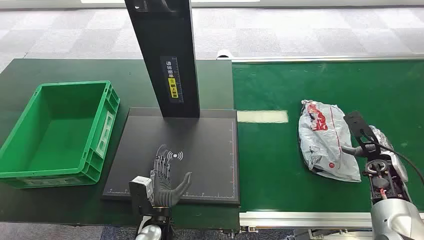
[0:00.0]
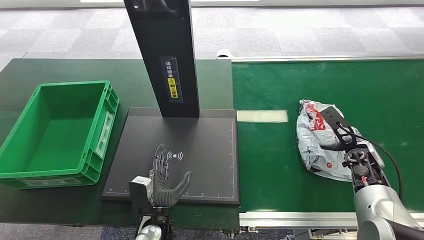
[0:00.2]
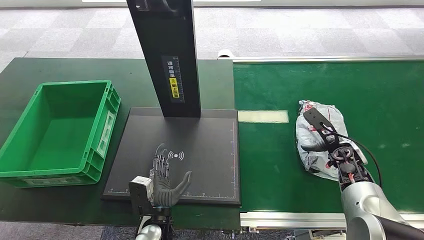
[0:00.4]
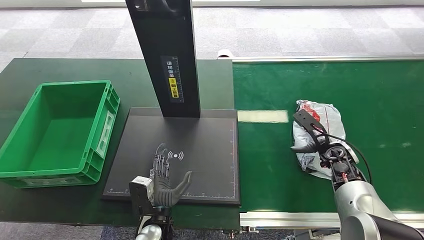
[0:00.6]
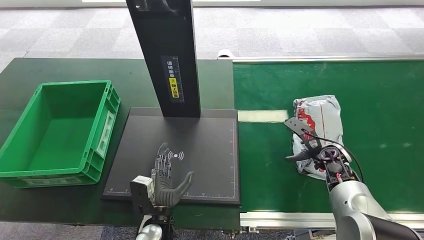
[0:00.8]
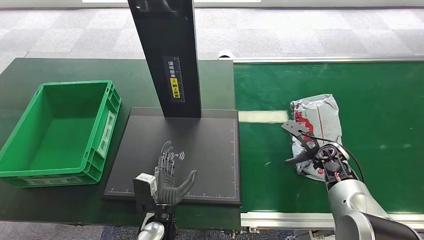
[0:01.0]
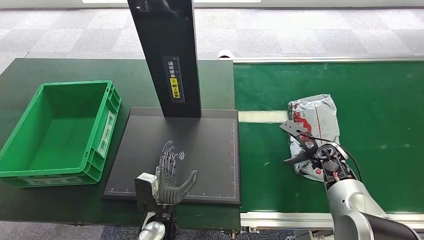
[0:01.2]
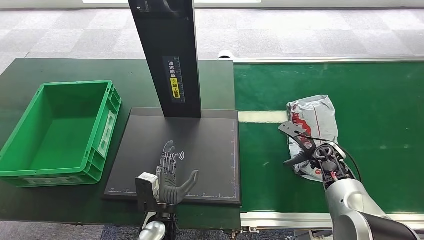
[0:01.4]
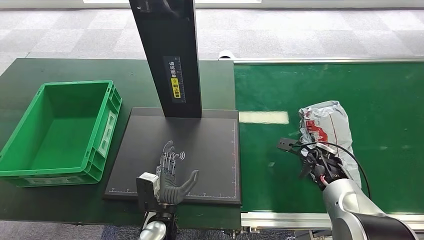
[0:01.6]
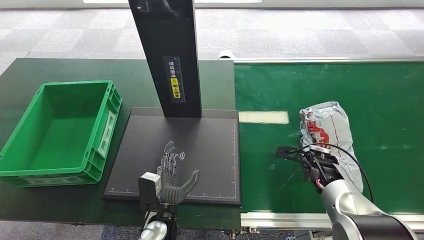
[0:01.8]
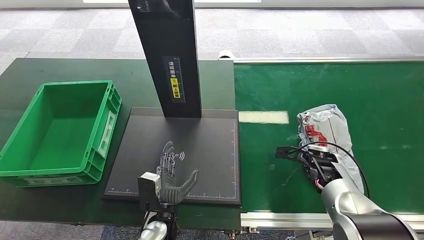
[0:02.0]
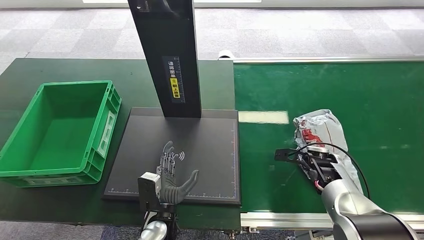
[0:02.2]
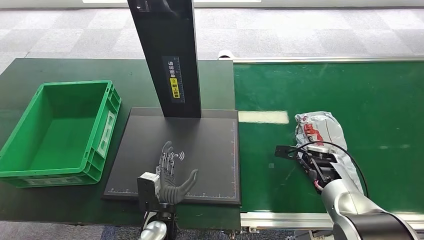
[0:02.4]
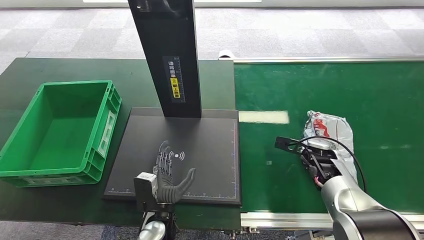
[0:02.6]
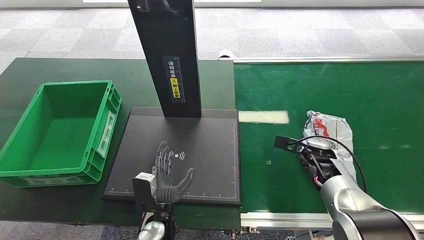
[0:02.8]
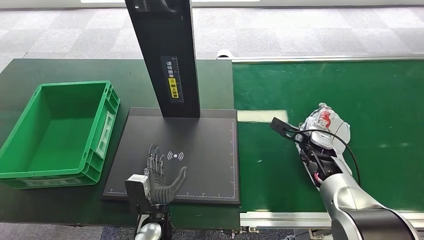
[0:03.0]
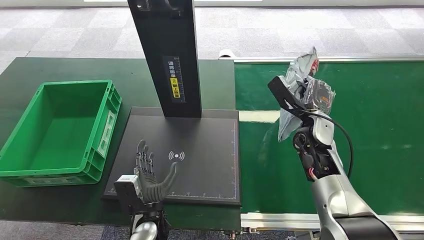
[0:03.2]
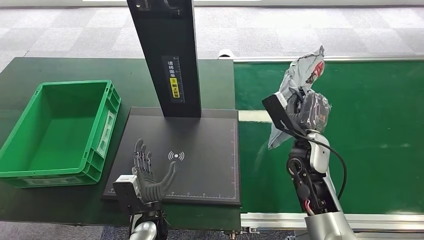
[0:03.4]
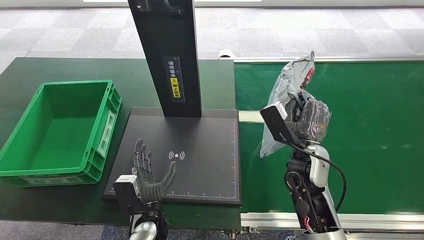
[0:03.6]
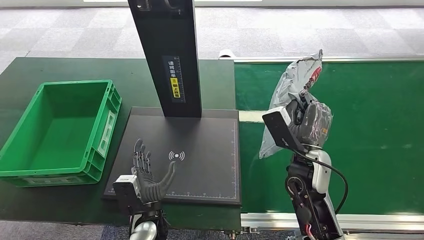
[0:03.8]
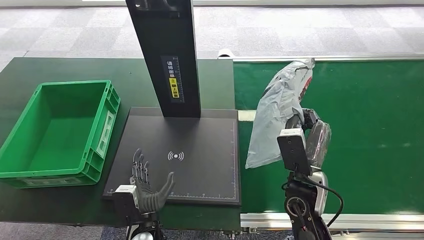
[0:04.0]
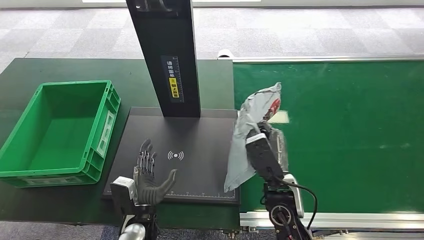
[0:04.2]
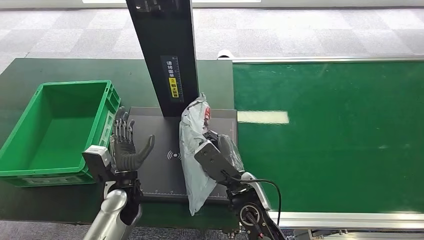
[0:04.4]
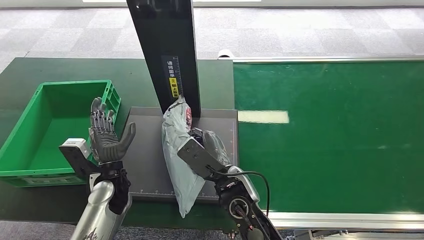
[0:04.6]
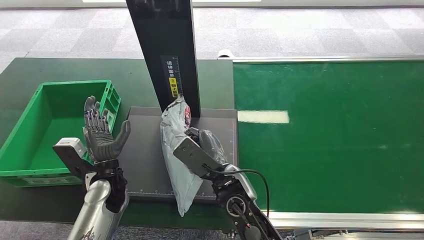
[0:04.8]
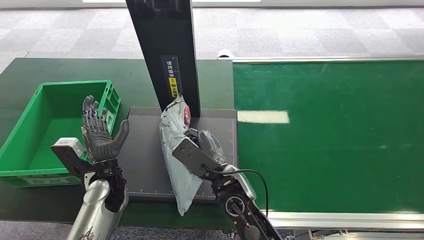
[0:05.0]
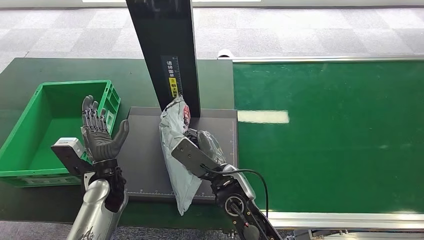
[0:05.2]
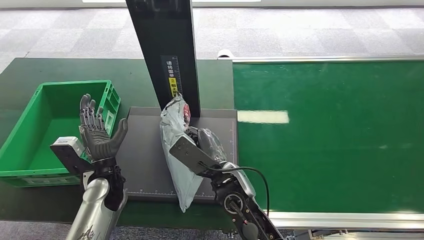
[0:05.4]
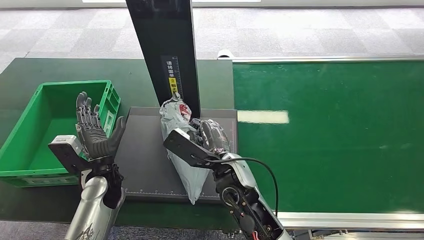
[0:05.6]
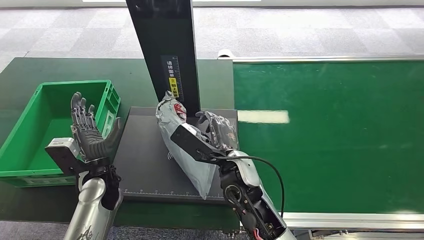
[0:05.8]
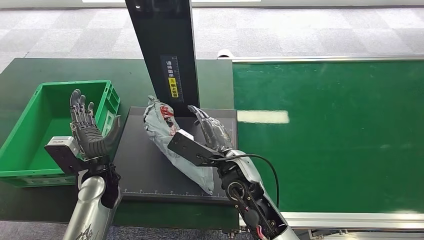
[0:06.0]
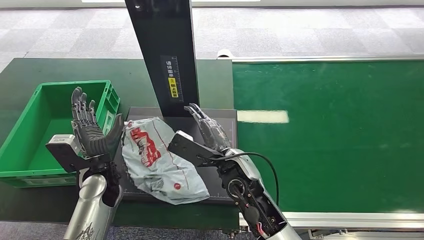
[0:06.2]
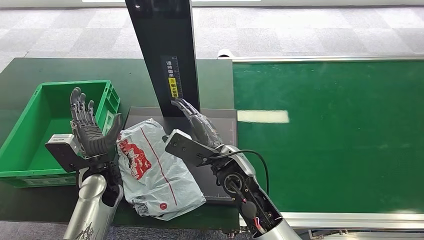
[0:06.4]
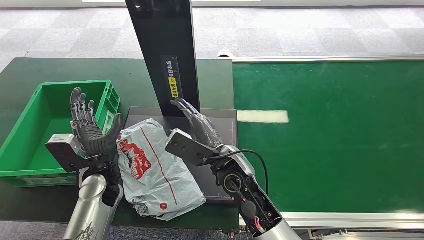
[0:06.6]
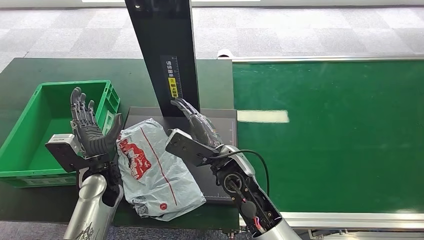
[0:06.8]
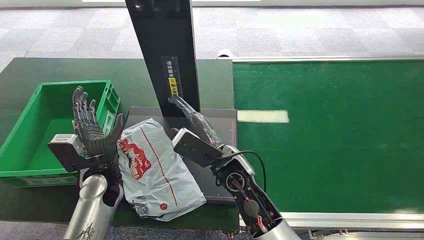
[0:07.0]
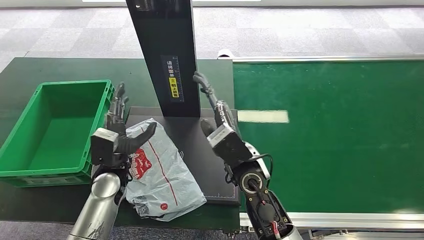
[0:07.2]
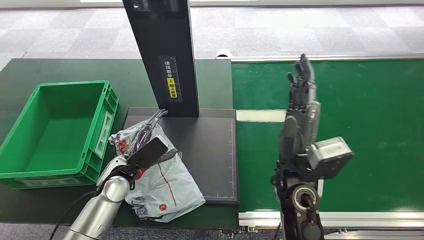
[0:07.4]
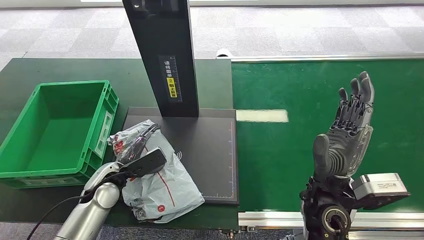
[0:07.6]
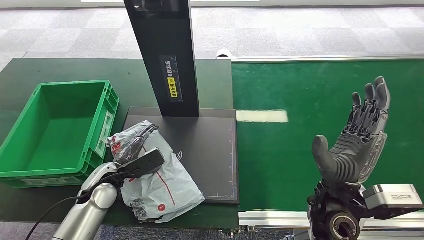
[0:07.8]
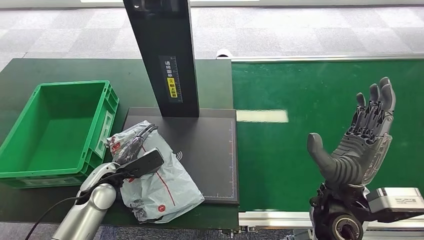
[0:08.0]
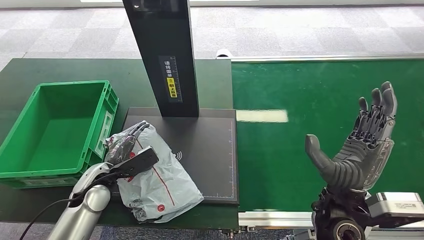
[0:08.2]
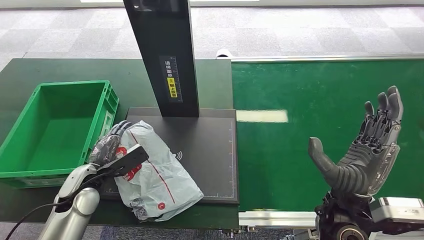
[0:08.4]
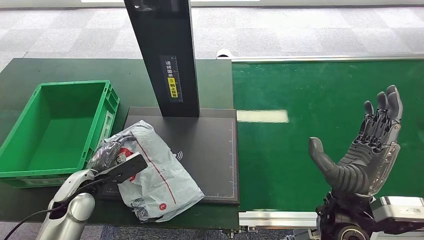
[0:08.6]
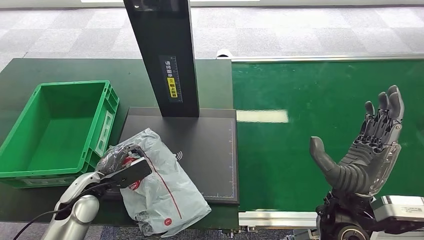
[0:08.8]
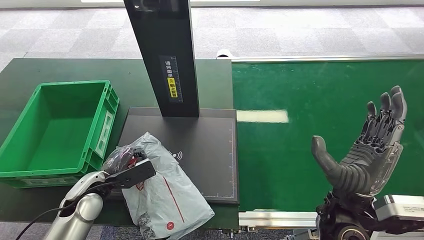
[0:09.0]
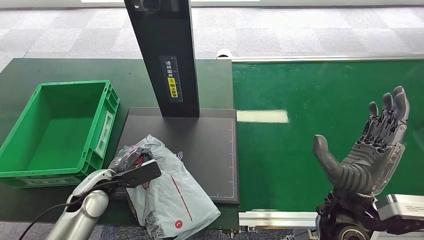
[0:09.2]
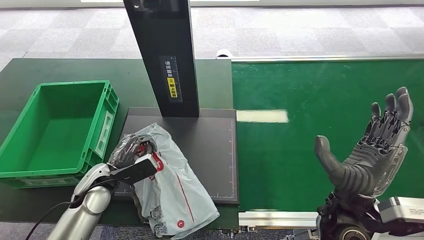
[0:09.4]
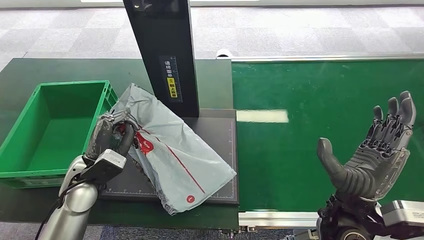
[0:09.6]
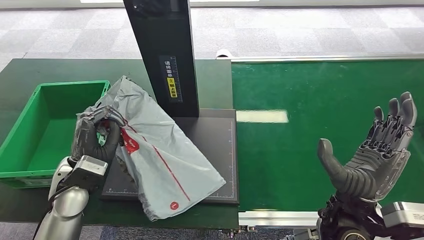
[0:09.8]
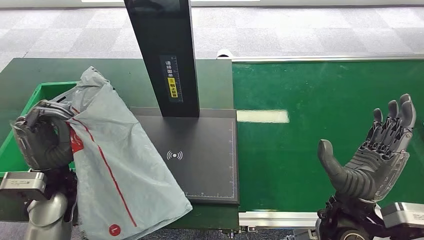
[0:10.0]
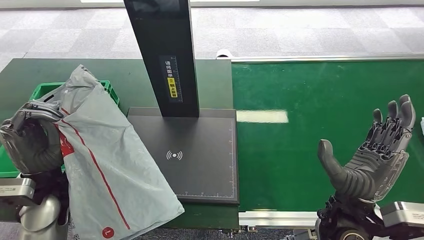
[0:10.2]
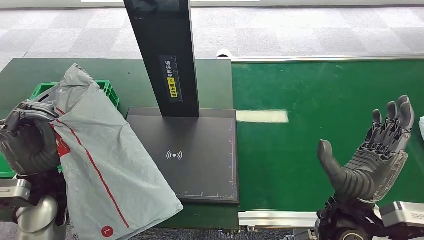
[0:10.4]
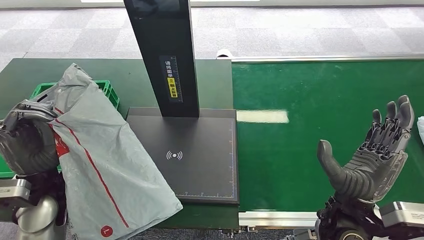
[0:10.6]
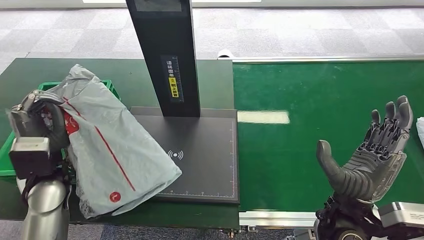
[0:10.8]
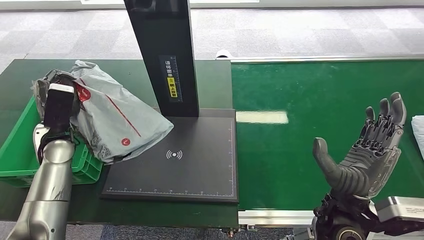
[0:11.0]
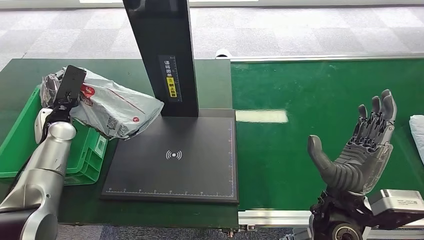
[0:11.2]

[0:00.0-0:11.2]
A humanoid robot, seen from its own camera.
Step, 0:00.0 to 0:04.0: Pick up the package from the conveyor belt.
Step, 0:04.2 to 0:07.8: Place the package onto the inbound machine.
Step, 0:08.0 to 0:11.0: Pick up the package from the inbound machine.
0:01.6 to 0:03.2: The right hand shifts approximately 10 cm upward and to the left.

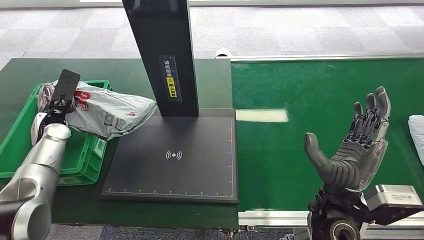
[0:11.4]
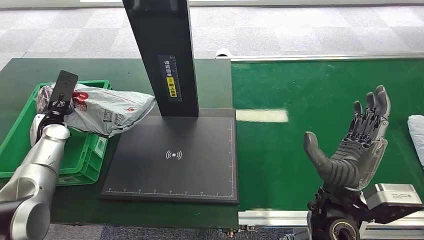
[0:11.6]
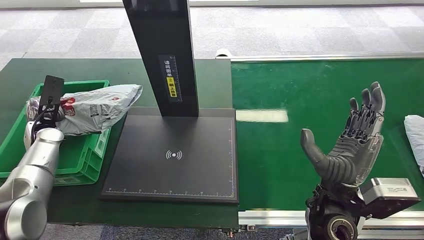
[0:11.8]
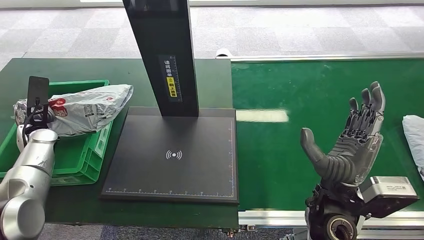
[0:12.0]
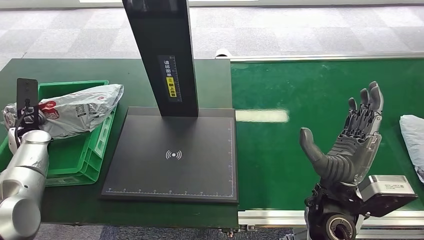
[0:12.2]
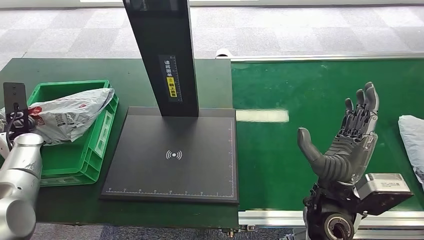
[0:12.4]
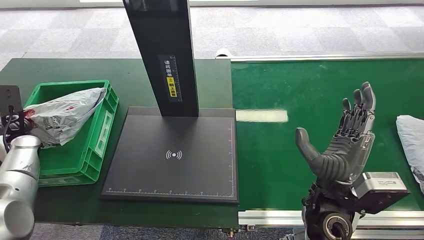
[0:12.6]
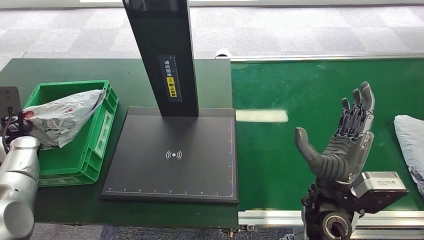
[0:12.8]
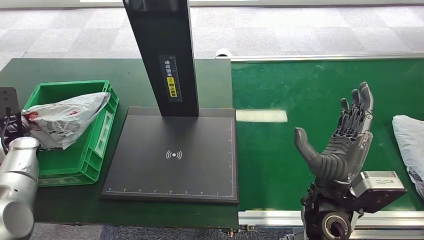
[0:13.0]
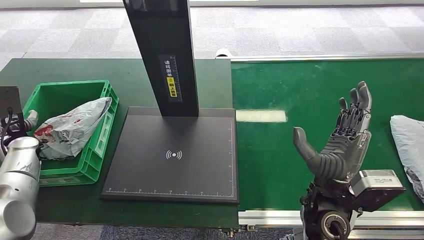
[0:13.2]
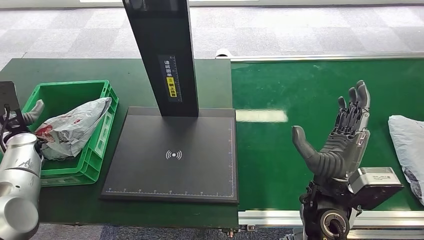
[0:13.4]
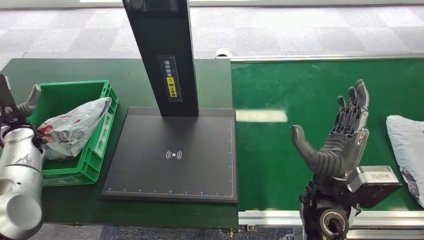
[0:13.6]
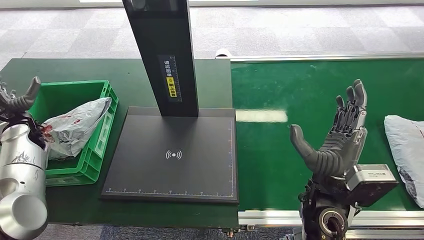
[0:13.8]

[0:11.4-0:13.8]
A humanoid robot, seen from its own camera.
Step, 0:11.4 to 0:13.8: Place the package into the parcel locker.

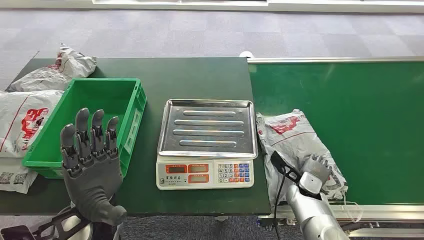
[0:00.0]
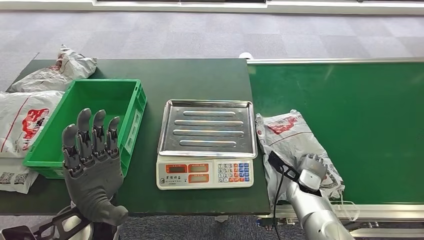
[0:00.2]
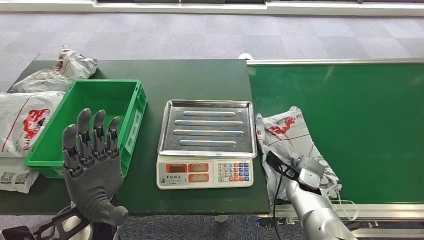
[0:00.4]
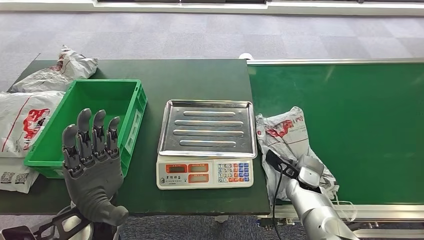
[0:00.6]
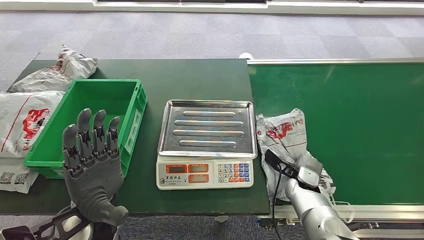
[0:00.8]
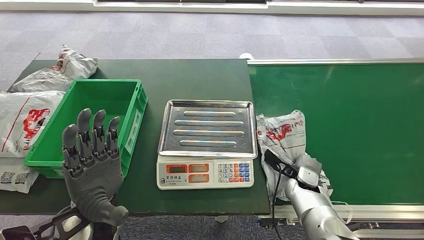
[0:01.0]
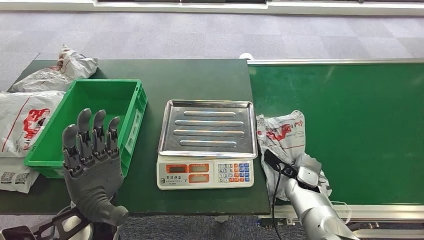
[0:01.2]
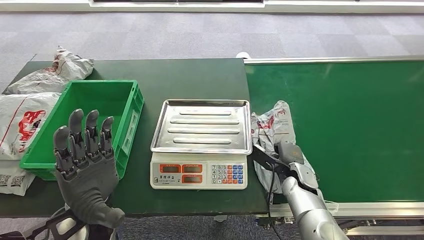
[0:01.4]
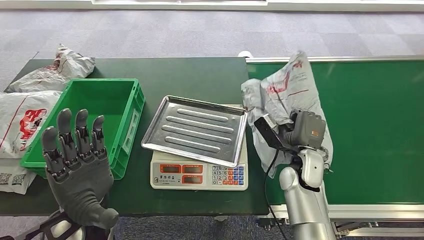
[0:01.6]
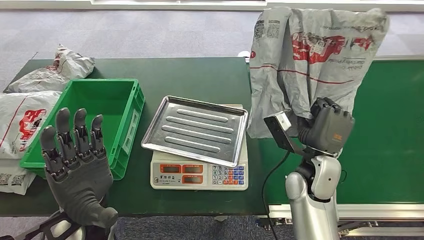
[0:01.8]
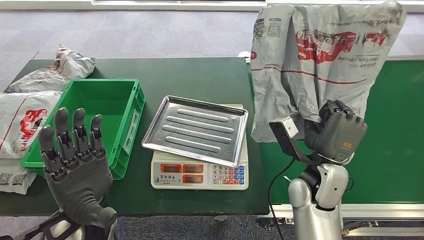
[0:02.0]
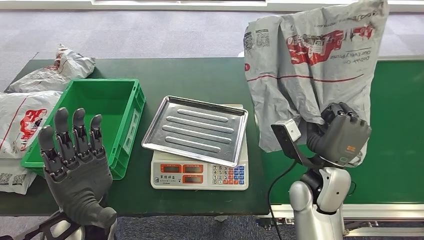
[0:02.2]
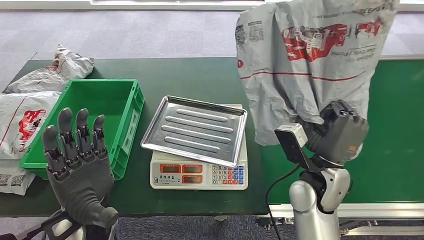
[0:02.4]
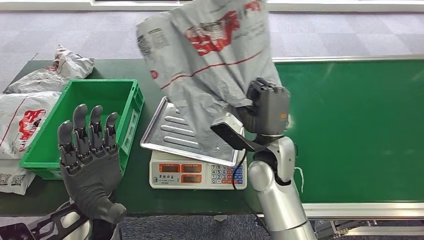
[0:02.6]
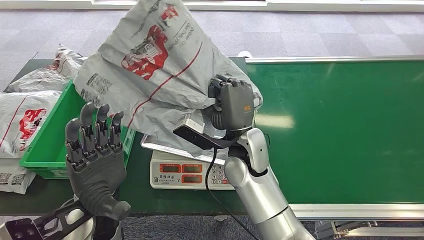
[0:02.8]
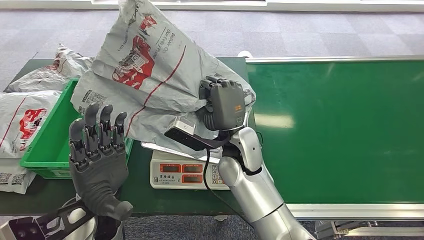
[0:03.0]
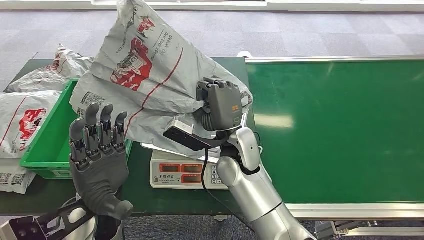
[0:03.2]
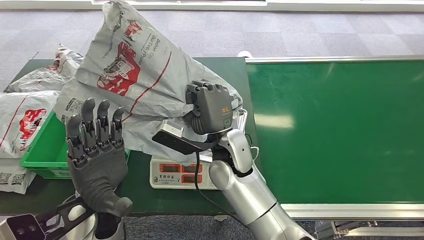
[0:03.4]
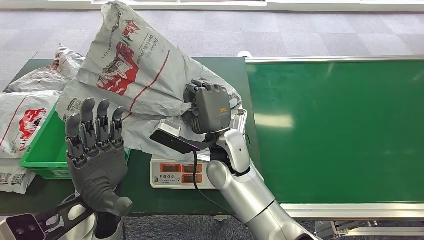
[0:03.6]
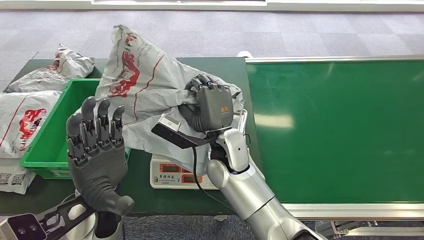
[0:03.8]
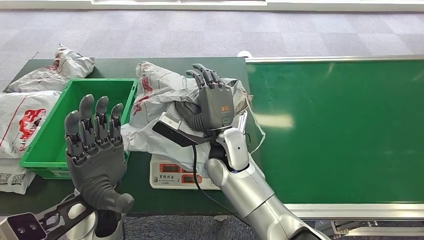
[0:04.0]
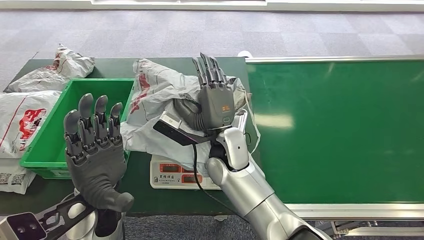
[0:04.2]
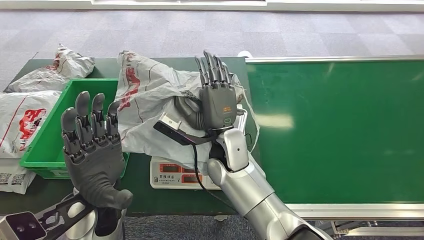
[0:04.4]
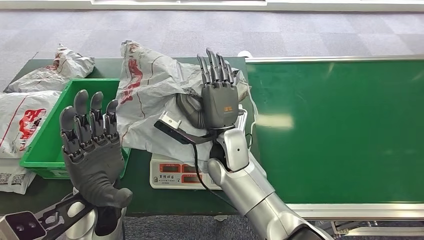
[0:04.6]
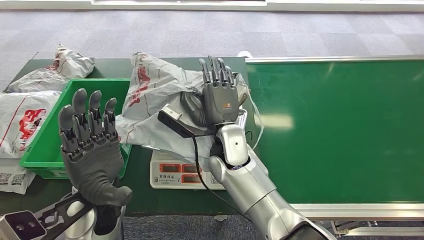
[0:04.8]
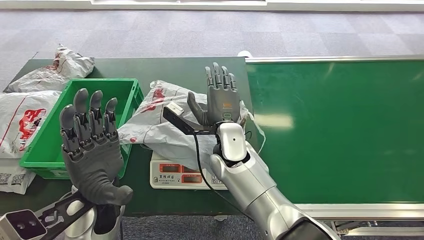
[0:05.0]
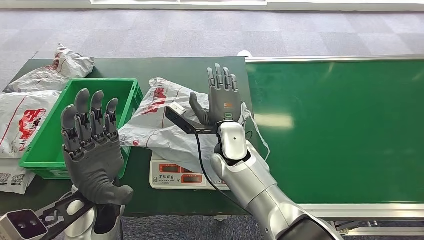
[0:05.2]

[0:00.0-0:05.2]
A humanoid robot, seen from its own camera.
Step, 0:00.0 to 0:02.4: Pick up the package from the conveyor belt.
